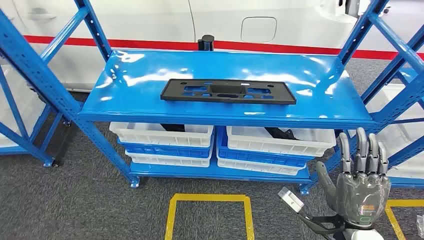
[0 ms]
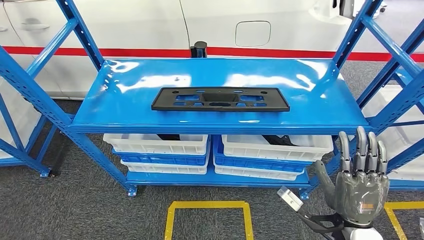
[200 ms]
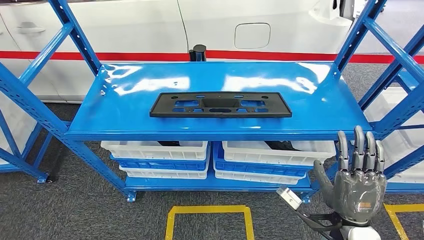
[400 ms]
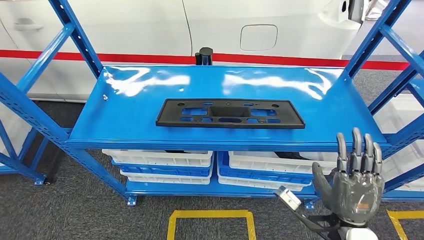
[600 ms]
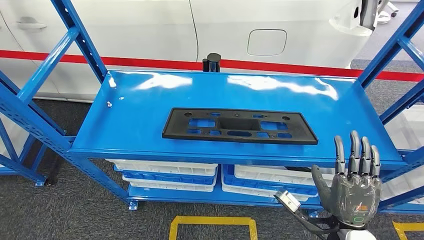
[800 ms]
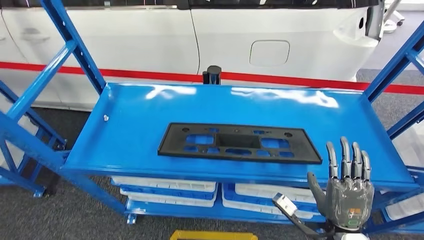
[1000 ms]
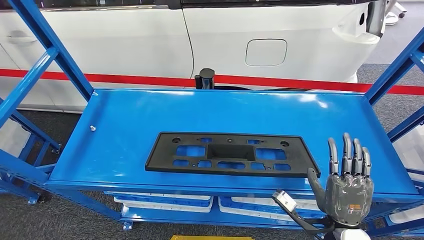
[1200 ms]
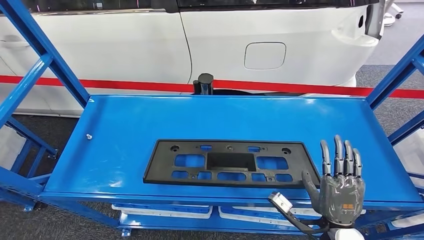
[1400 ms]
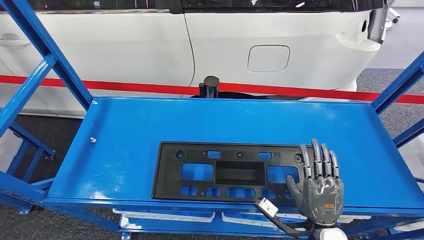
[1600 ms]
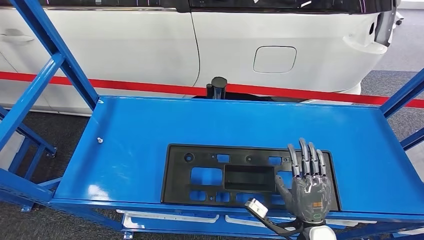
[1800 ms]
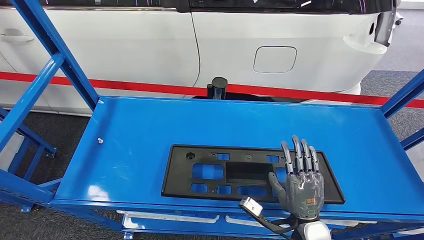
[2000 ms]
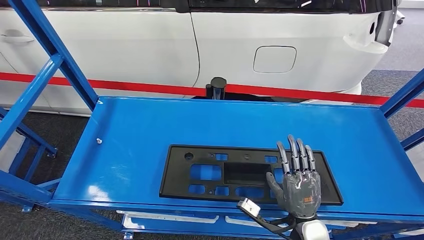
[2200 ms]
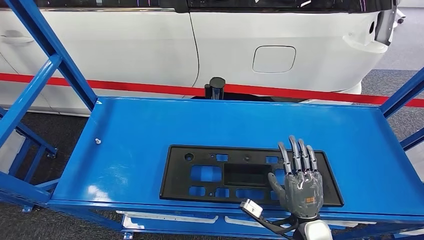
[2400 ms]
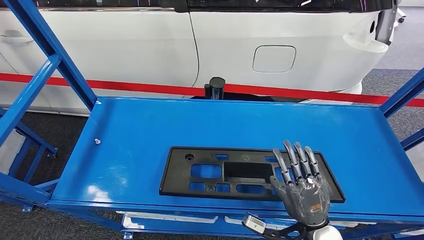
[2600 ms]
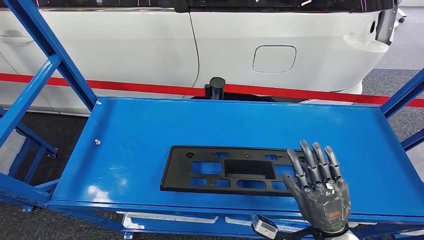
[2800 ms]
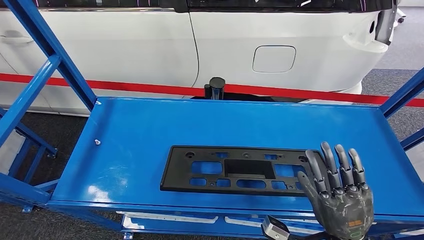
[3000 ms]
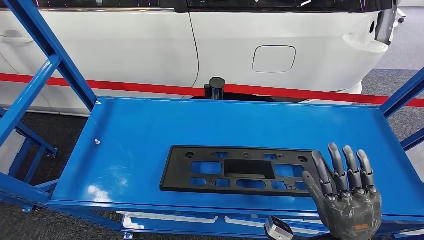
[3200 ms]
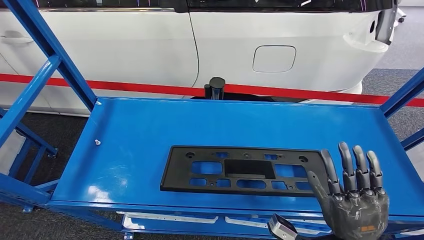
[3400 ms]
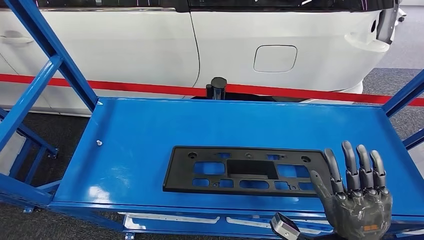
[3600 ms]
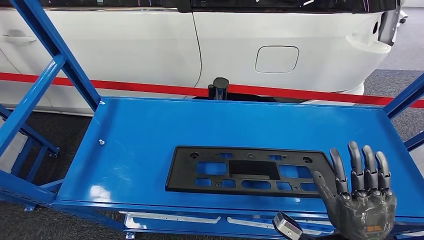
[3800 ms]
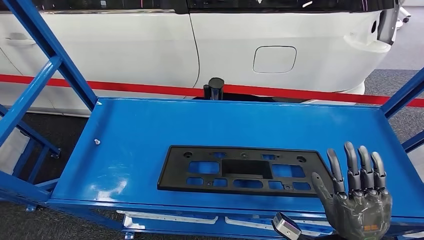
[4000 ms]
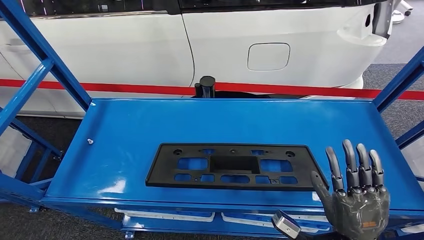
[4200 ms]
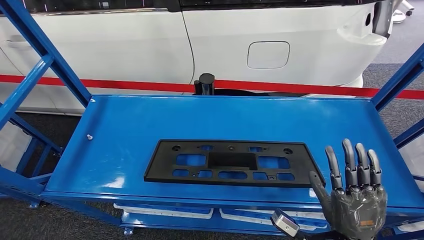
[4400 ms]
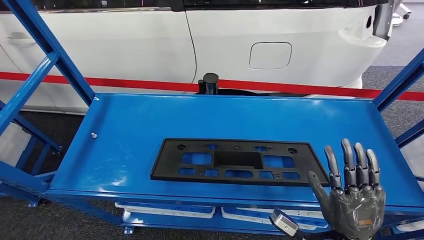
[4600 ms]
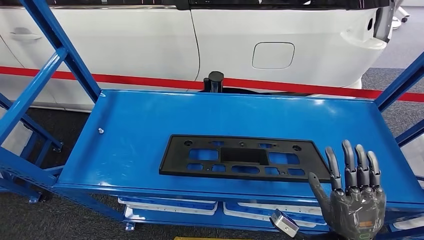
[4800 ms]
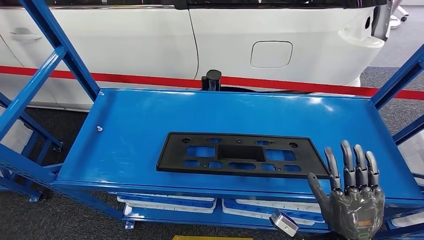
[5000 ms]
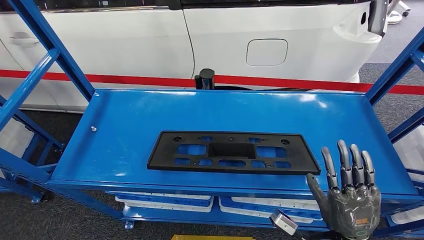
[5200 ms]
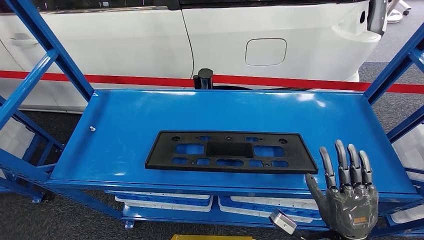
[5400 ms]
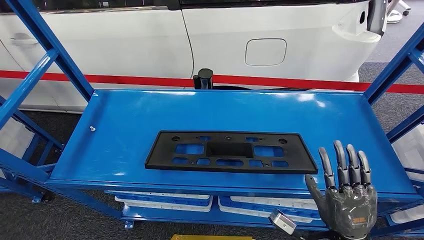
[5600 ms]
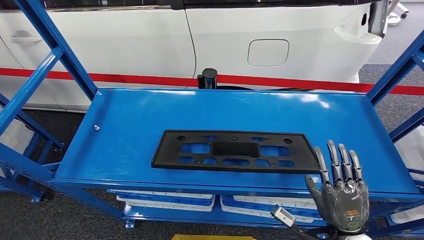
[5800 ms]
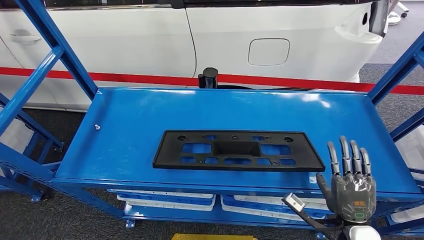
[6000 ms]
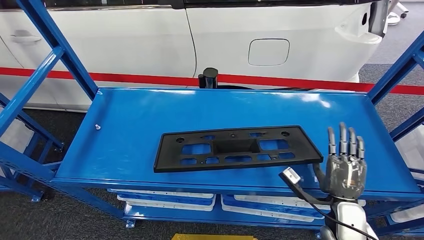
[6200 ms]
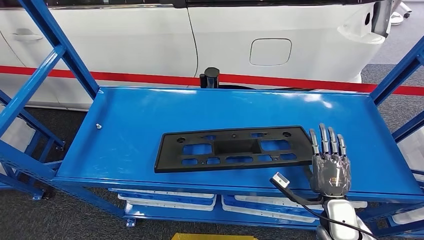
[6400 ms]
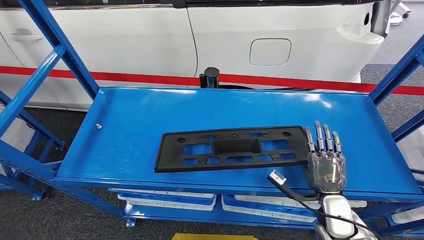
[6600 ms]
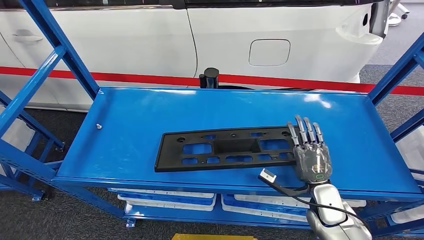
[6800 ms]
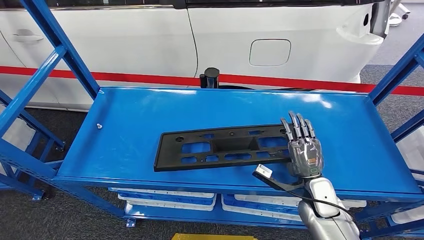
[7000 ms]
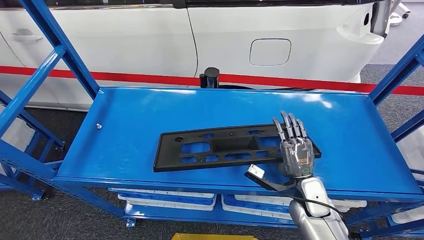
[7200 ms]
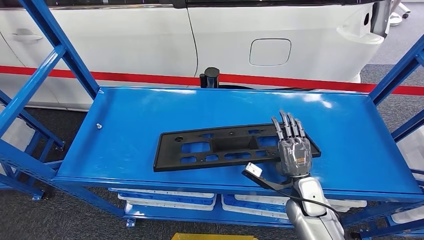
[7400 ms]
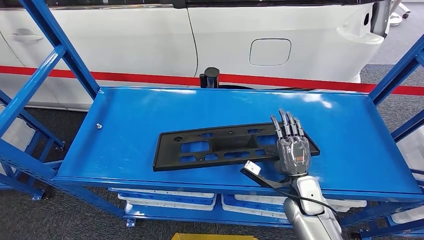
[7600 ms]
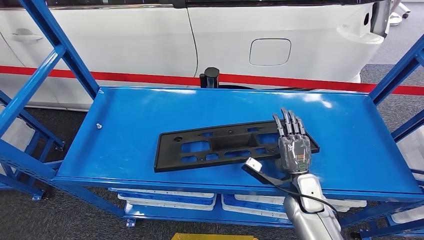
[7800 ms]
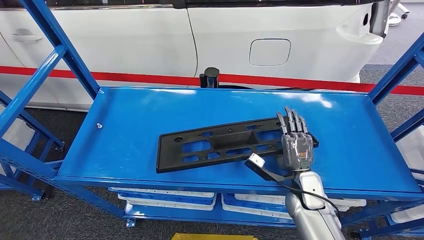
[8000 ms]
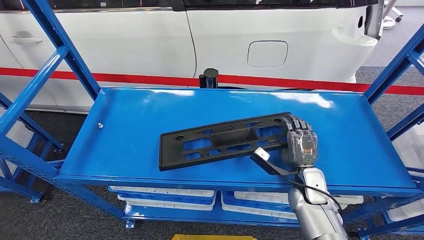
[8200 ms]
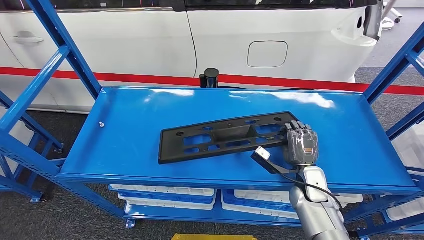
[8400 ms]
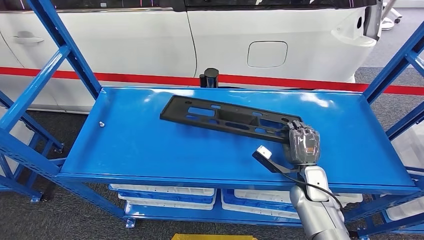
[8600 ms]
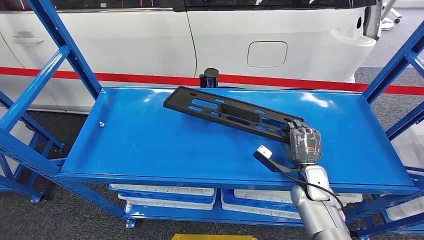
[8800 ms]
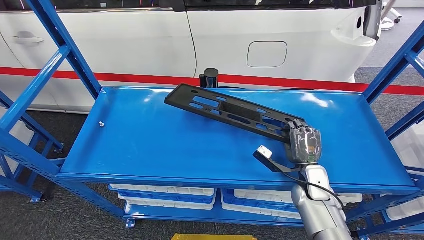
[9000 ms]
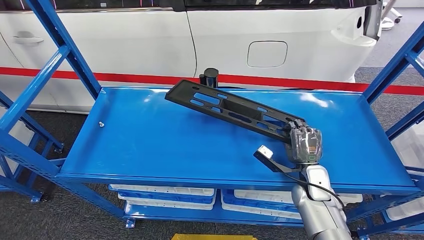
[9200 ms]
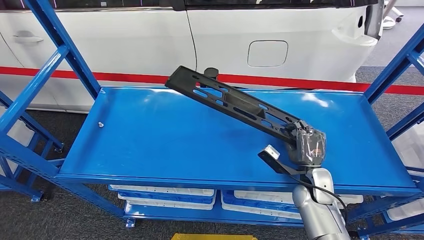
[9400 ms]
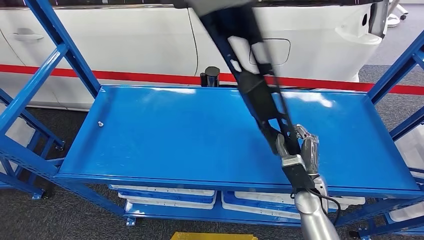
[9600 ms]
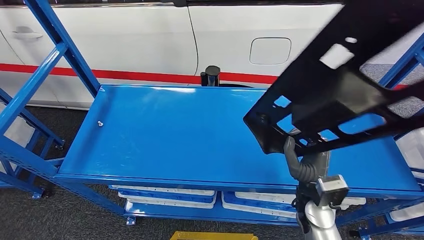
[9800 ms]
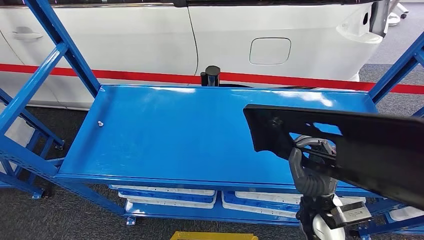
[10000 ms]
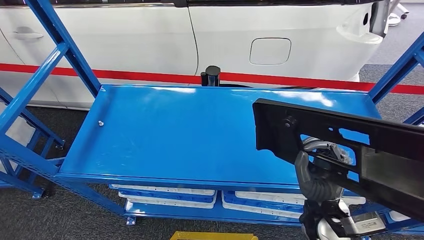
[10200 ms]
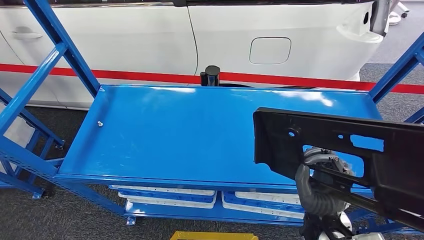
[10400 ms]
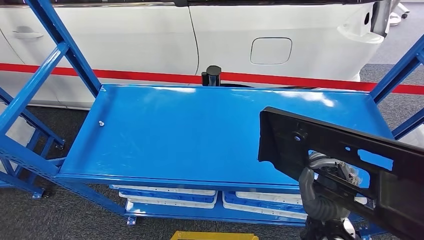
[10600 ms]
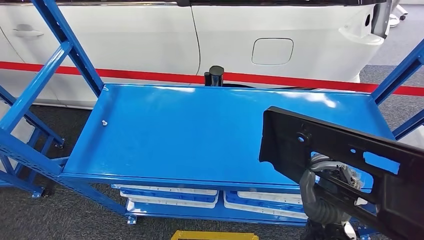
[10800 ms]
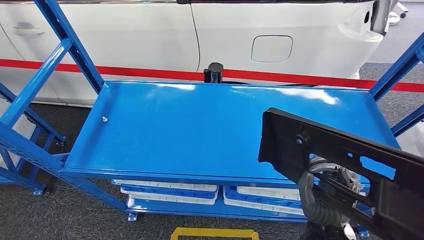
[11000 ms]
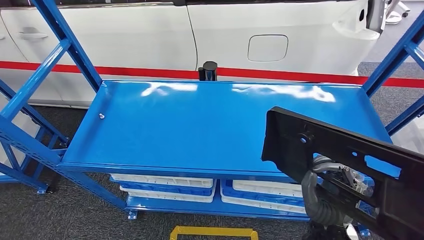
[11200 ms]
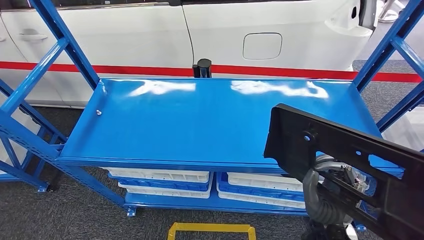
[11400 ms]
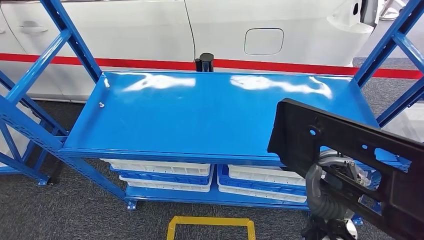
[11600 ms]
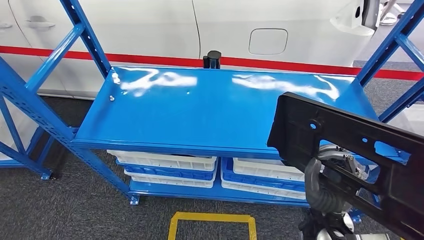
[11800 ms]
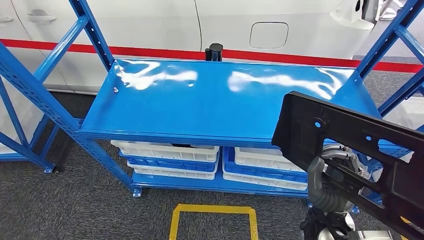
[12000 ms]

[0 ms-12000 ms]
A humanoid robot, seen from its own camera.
6000 ms to 7600 ms: The right hand shifts some 15 cm forward and to the left.

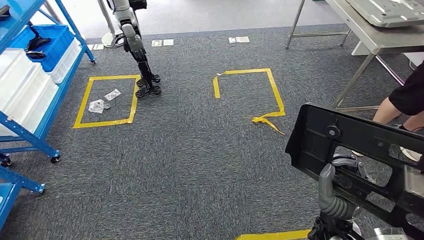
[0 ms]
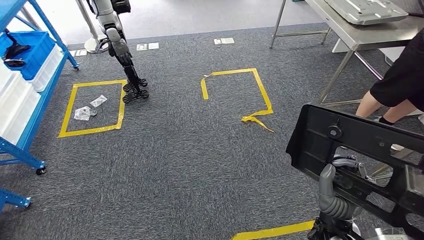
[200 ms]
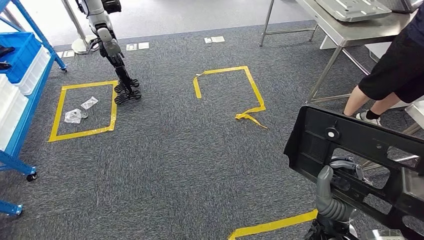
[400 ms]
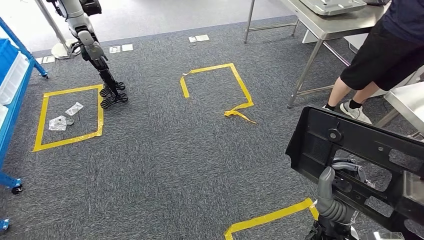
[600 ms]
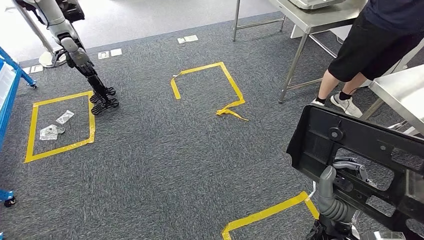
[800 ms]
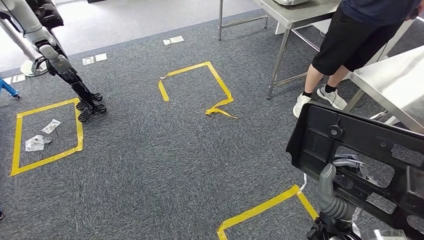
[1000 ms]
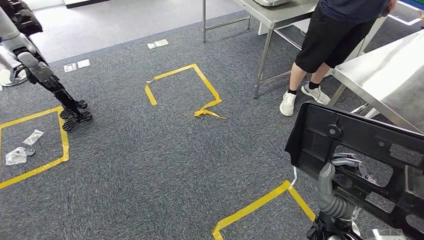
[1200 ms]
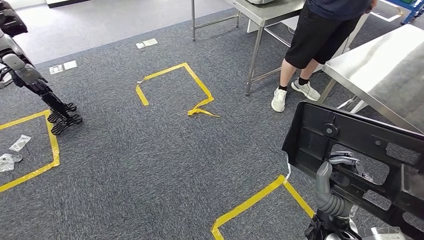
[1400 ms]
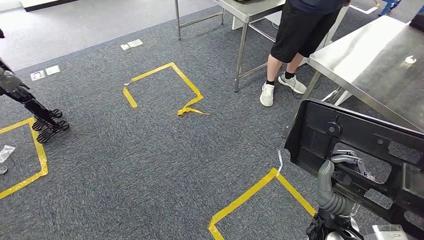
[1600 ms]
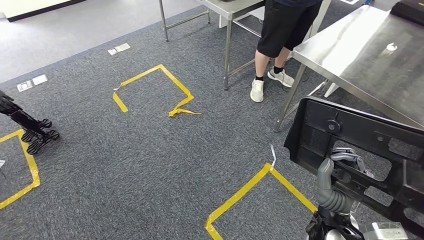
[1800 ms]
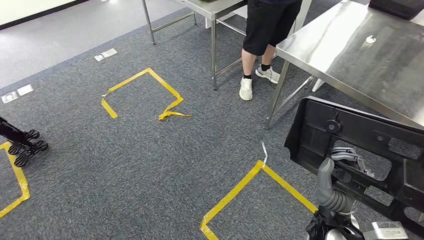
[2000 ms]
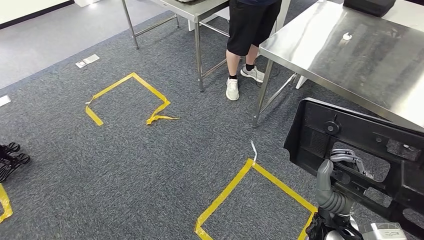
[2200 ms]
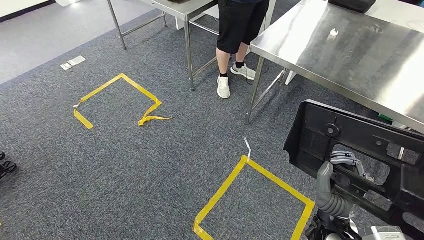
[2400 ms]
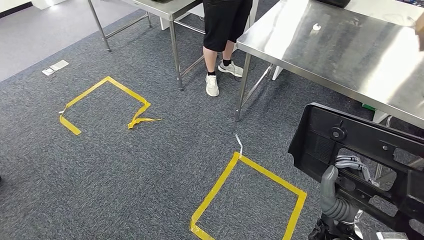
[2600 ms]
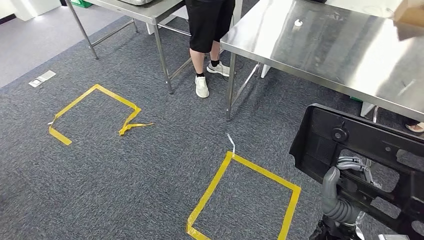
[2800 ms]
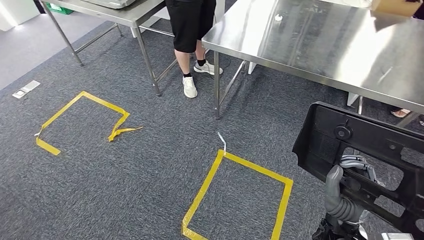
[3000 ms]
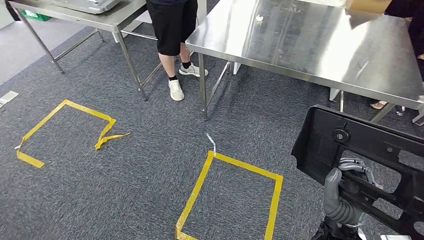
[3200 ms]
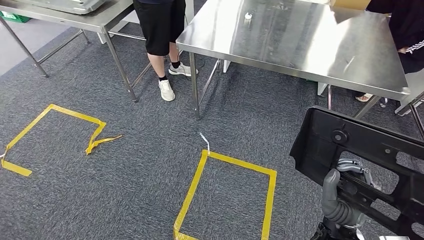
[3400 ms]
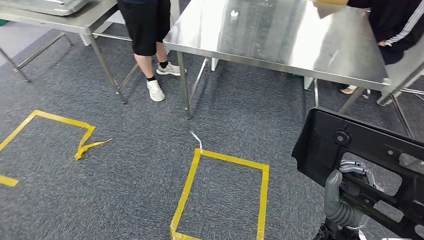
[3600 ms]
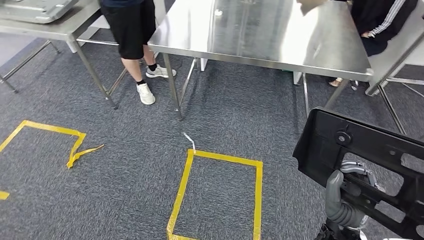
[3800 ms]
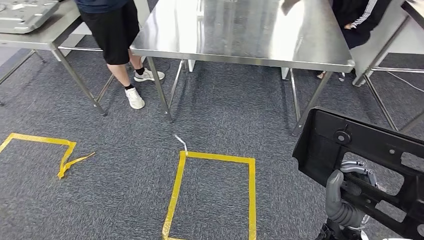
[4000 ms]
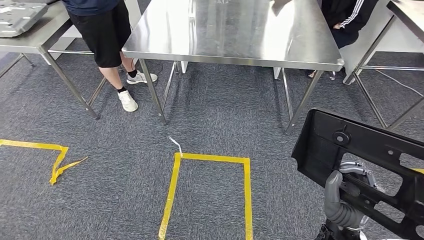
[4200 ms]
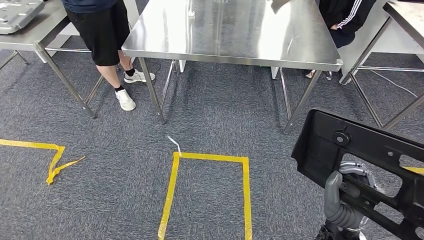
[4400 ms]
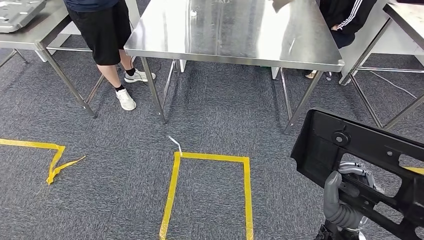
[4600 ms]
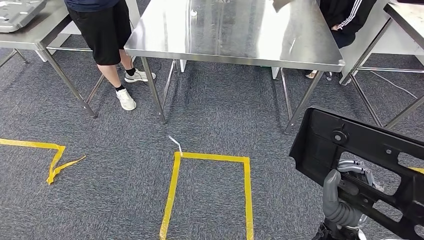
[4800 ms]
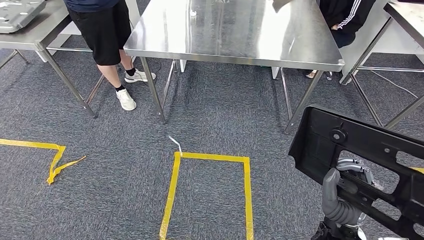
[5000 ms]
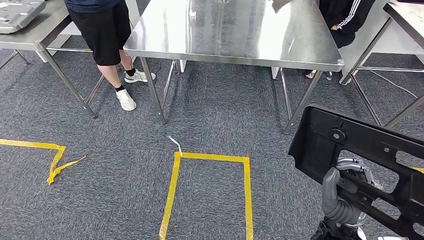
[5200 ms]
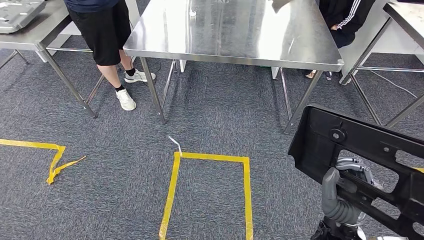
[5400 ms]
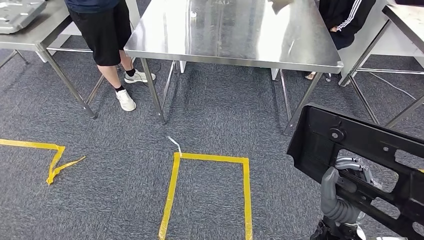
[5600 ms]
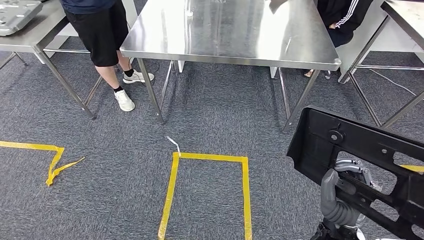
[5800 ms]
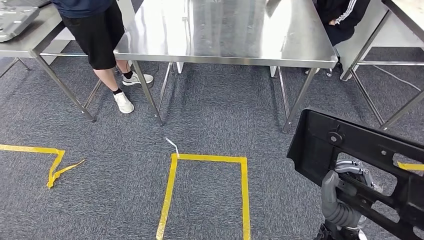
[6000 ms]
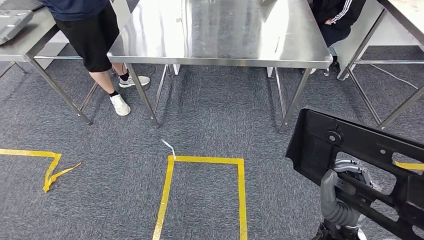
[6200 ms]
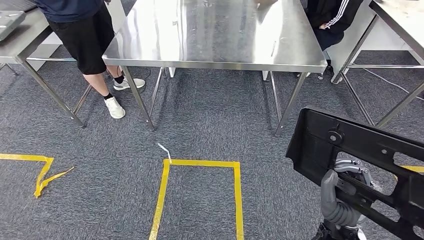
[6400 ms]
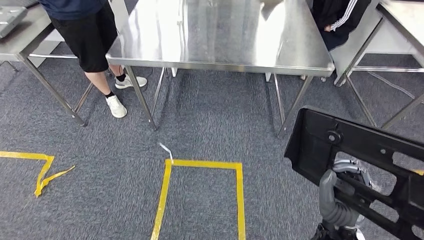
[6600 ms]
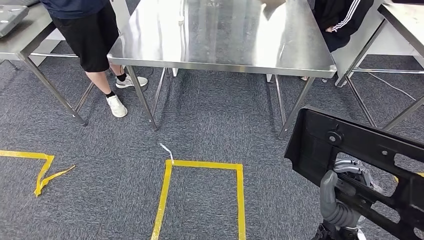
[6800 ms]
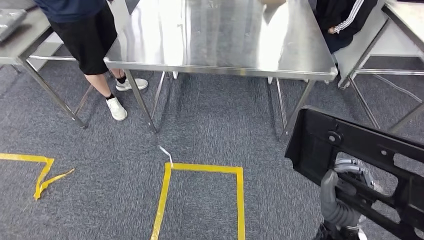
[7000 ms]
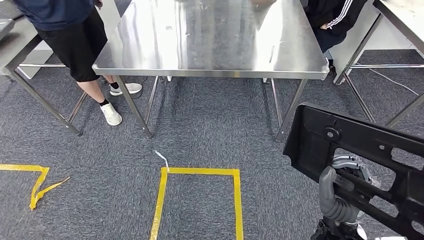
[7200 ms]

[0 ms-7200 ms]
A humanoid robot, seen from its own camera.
4400 ms to 5800 ms: Neither hand changes place.
